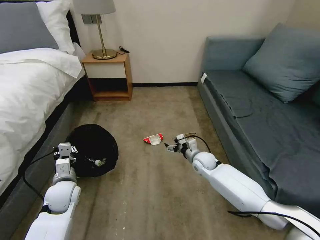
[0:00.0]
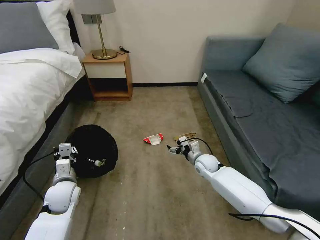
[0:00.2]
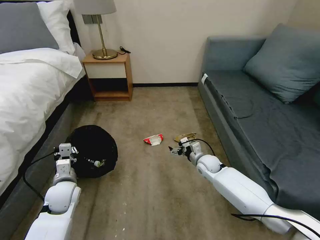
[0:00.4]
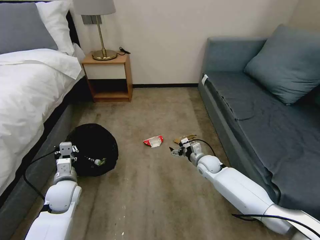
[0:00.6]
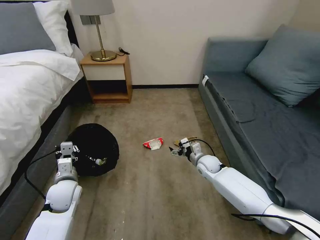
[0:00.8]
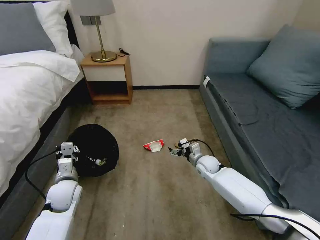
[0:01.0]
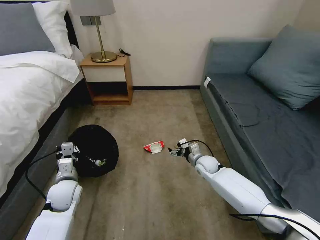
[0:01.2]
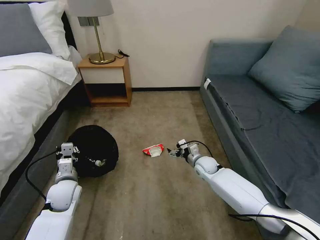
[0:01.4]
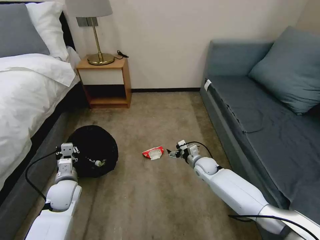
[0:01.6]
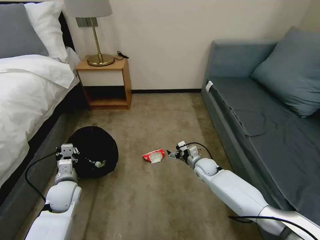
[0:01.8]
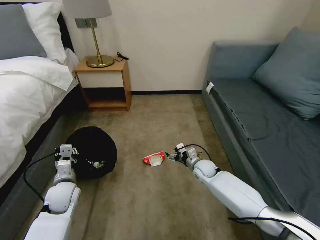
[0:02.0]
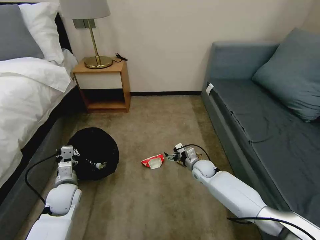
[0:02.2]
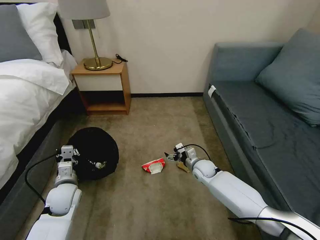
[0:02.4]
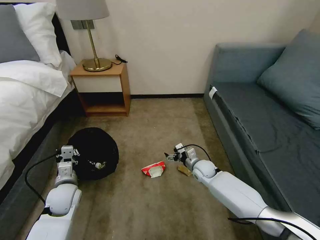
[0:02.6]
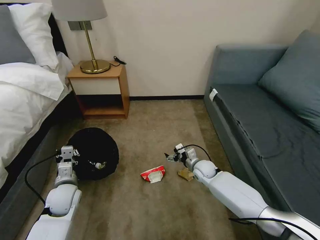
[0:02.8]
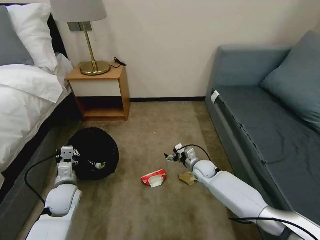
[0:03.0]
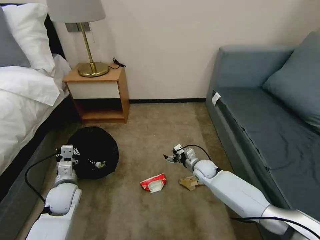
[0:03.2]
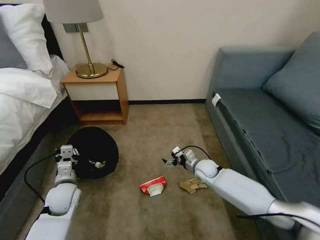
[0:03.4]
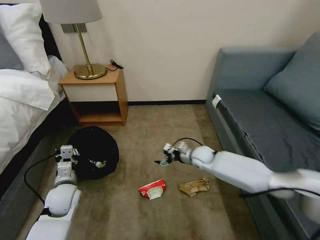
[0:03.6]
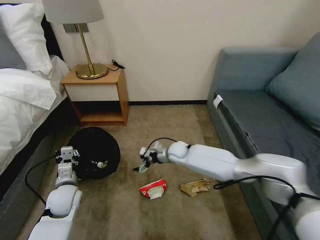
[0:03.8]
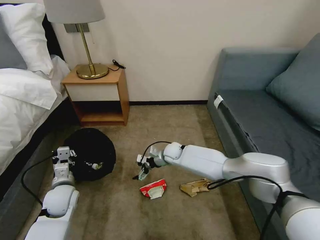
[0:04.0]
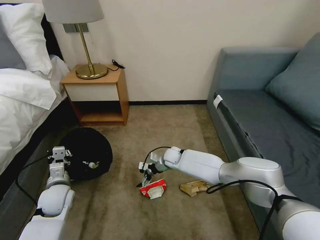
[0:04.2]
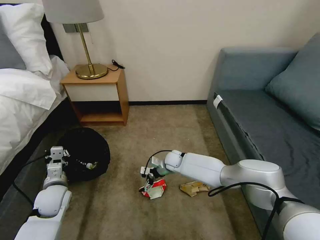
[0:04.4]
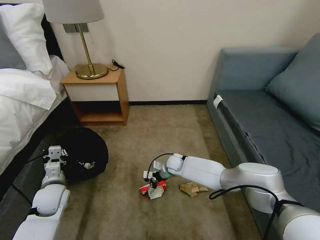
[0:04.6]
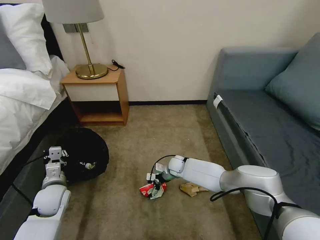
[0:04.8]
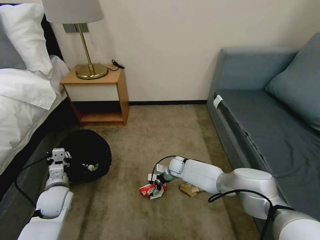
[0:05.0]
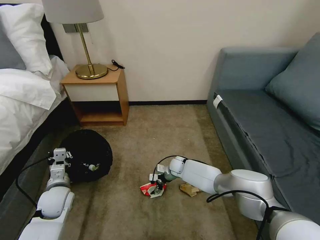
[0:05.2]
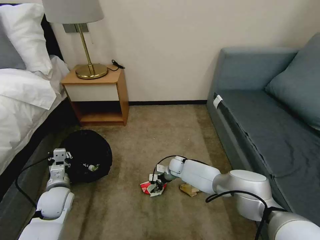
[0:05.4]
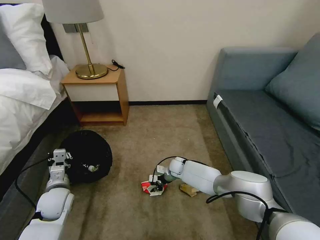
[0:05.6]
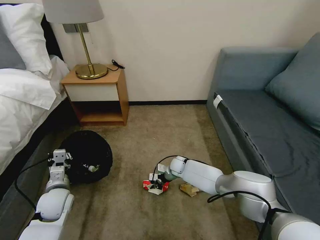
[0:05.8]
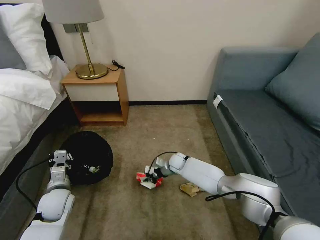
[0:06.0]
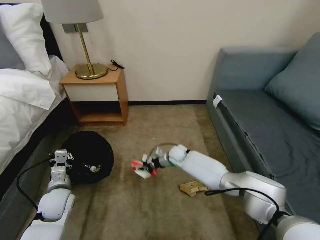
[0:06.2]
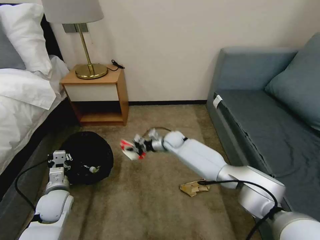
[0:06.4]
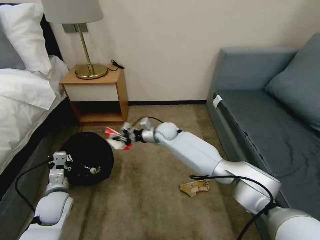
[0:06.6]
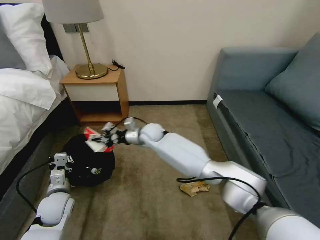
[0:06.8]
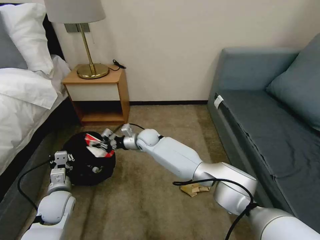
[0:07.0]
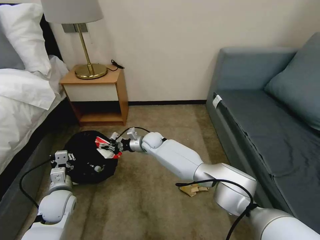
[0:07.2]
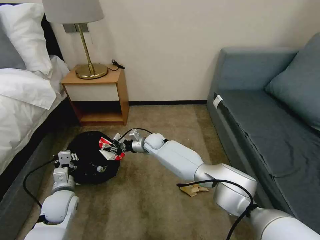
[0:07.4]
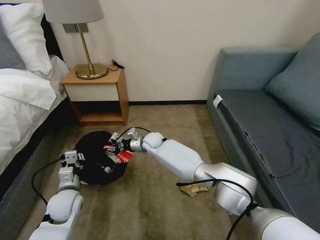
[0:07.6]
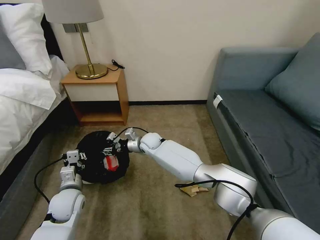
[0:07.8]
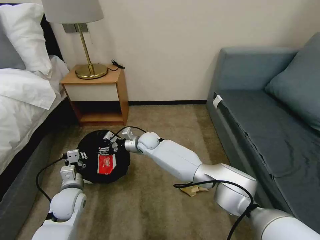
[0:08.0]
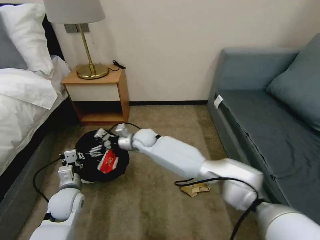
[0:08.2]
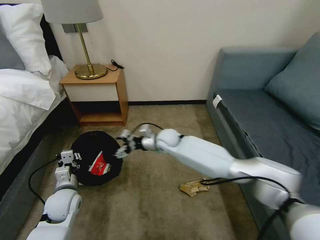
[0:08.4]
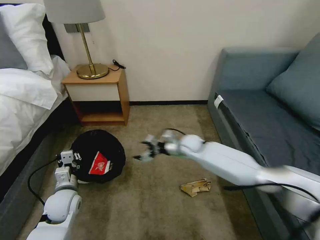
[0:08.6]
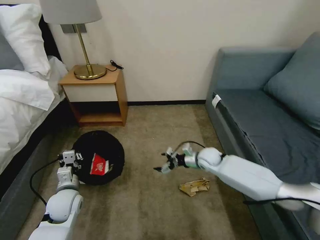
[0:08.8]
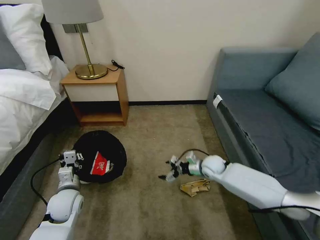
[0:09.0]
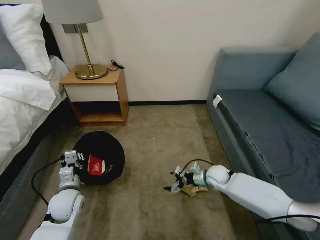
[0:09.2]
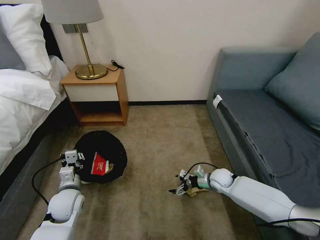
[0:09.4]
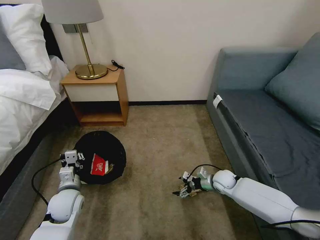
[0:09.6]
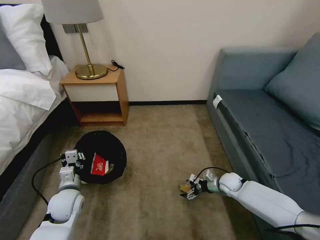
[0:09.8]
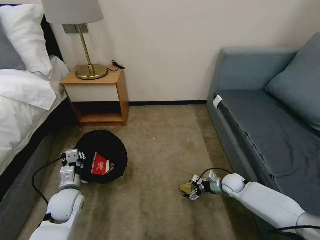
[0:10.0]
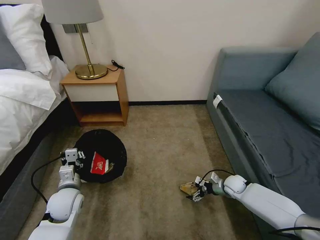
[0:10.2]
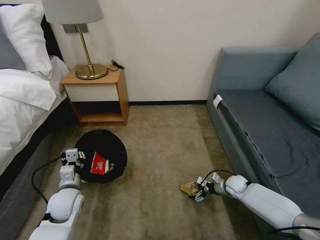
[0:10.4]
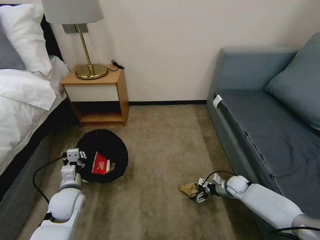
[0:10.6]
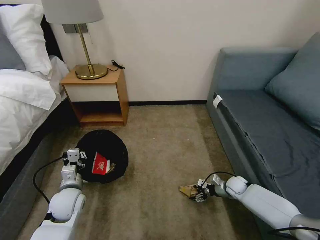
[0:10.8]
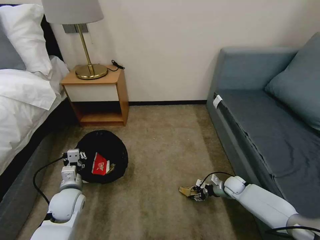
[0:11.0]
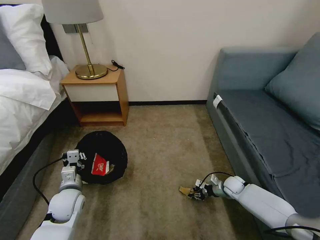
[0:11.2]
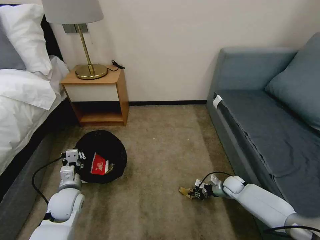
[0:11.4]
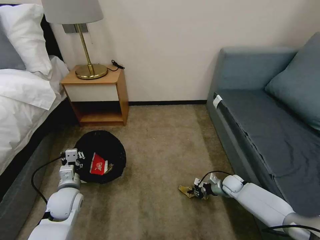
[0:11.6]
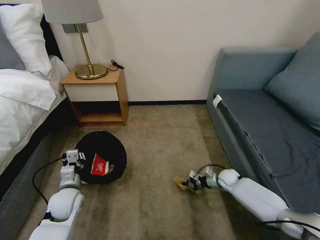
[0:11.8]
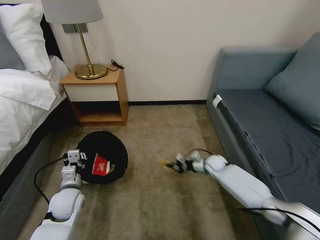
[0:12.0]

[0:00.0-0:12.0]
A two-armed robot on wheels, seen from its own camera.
Task of the whole recording: Pick up the trash bin, then pick up the garbage on the floor and place it into the trash bin.
0:03.0 to 0:04.4: The right gripper heads to the left and forward, covering about 15 cm.
0:04.4 to 0:06.0: The right gripper closes up.
0:06.0 to 0:07.6: The right gripper shifts roughly 15 cm to the left and upward.
0:07.6 to 0:09.0: The right gripper goes approximately 25 cm to the right, and opens up.
0:09.0 to 0:10.4: The right gripper shifts approximately 15 cm to the right and downward.
0:10.4 to 0:12.0: The right gripper is displaced to the left and forward by approximately 10 cm, and closes up.

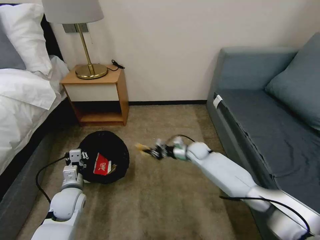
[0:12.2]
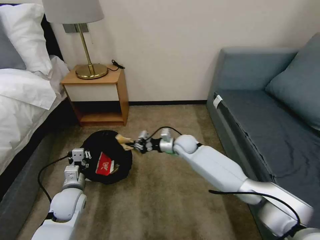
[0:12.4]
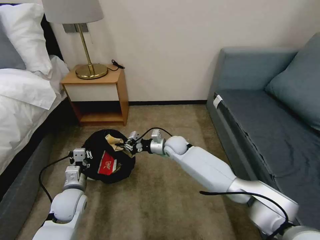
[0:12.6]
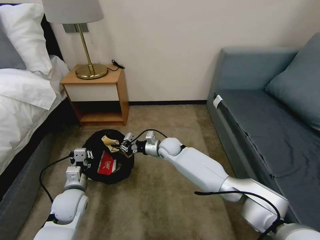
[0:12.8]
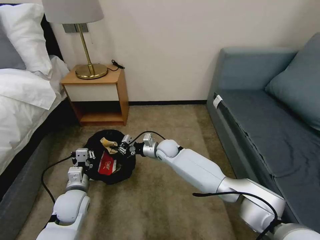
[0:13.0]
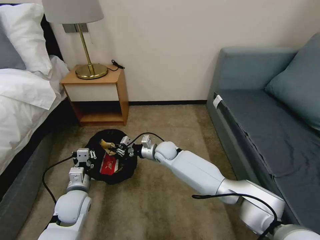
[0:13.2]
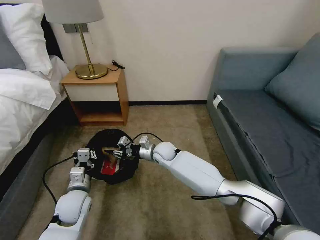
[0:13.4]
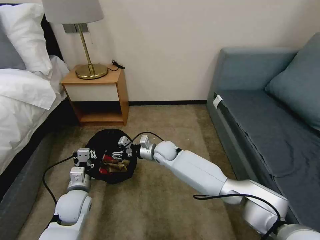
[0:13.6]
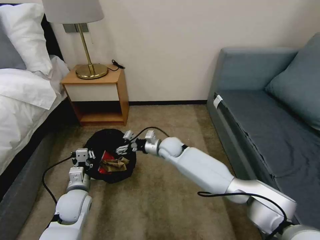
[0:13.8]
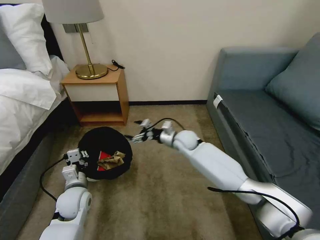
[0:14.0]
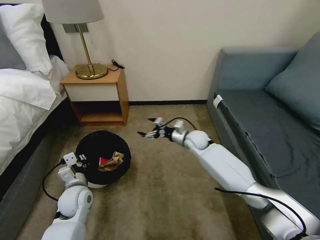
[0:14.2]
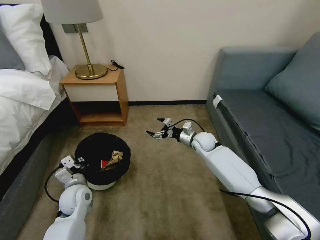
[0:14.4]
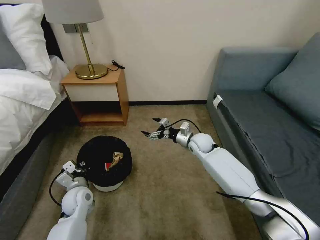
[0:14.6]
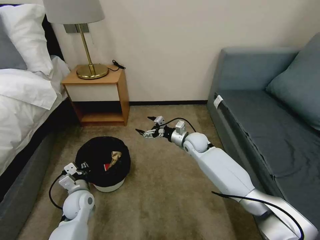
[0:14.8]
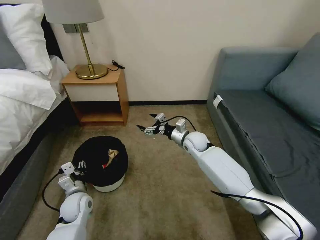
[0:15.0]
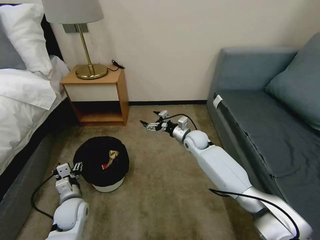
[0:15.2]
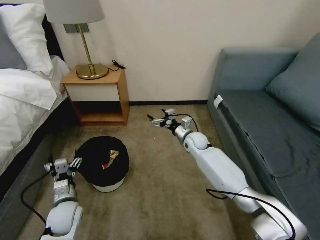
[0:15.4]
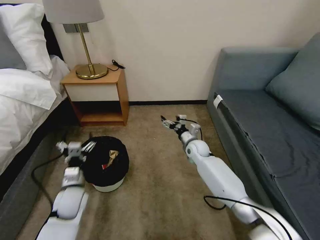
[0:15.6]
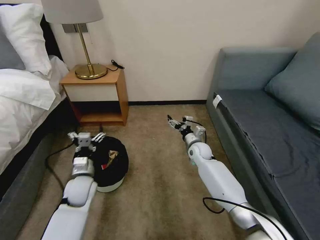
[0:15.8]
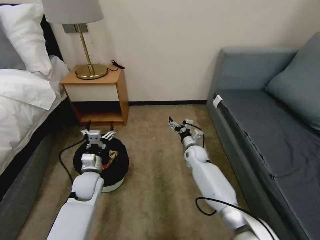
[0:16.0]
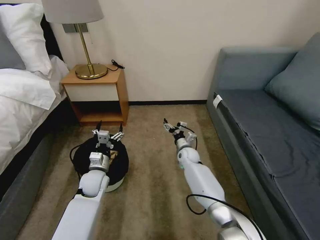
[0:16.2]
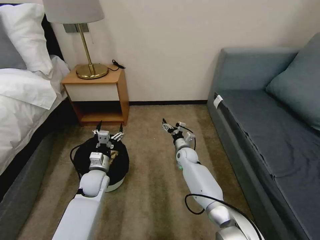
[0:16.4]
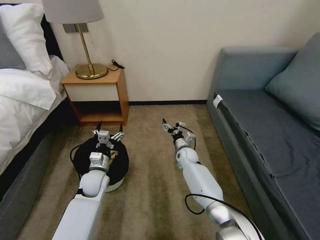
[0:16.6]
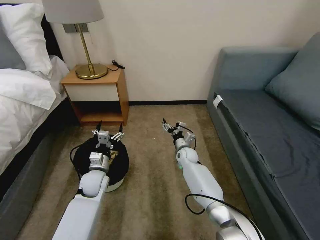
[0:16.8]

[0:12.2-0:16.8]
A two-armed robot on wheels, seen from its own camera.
Task of the whole recording: Pick up the trash bin, then pick up the garbage on the floor and place it into the trash bin.
0:12.2 to 0:13.8: The right gripper travels to the left by roughly 10 cm, and opens up.
0:13.8 to 0:15.2: The left gripper opens its fingers. The right gripper shifts roughly 10 cm to the right.
0:15.2 to 0:16.8: The left gripper is displaced forward and to the right by some 10 cm. Meanwhile the right gripper travels downward by approximately 10 cm.
